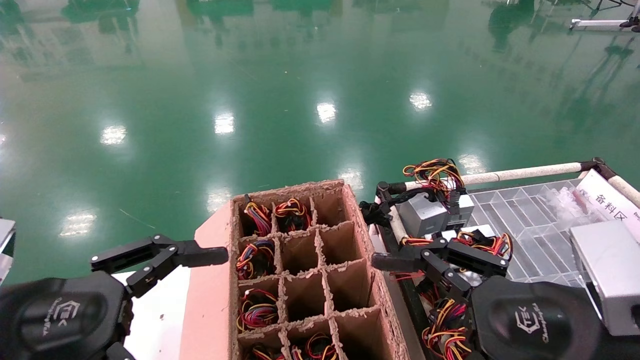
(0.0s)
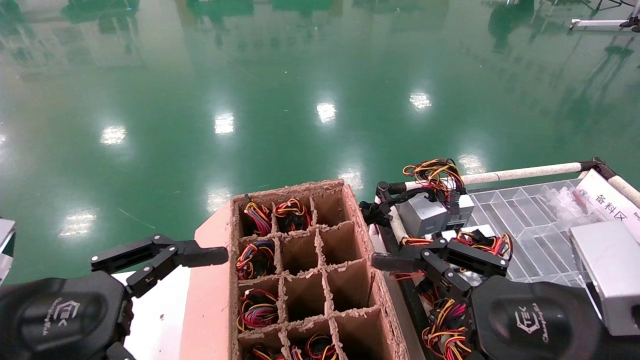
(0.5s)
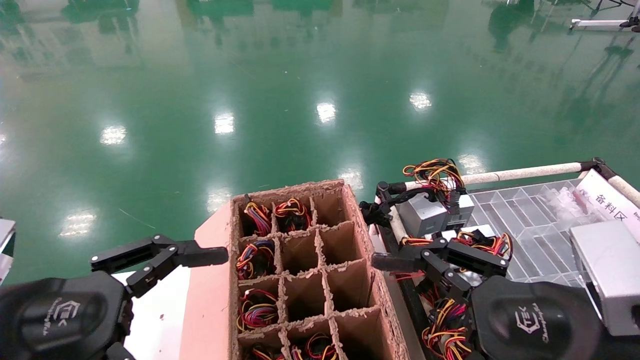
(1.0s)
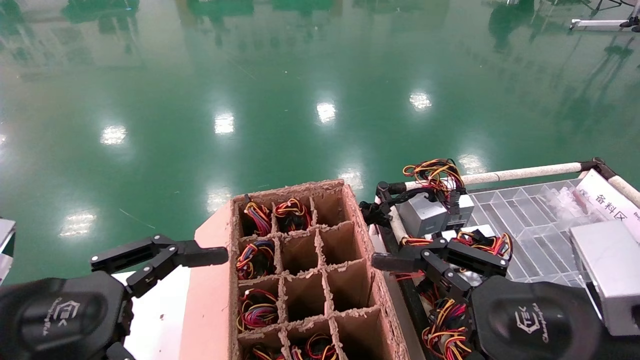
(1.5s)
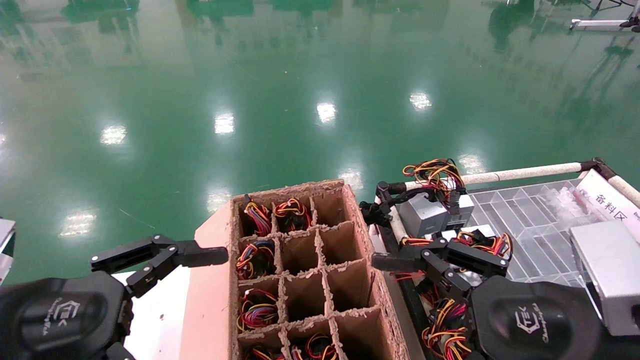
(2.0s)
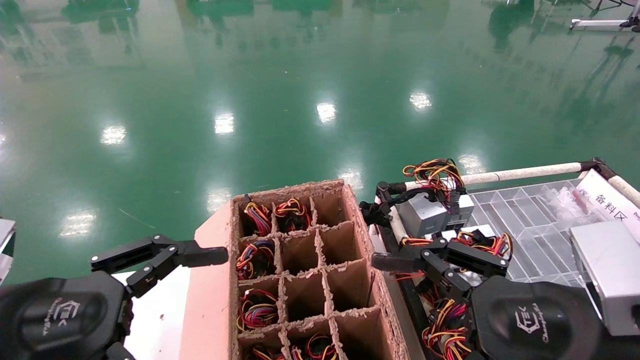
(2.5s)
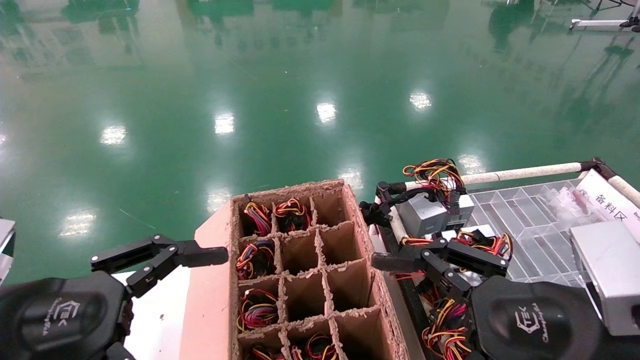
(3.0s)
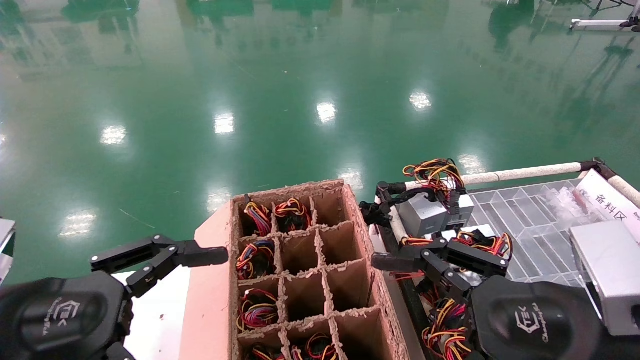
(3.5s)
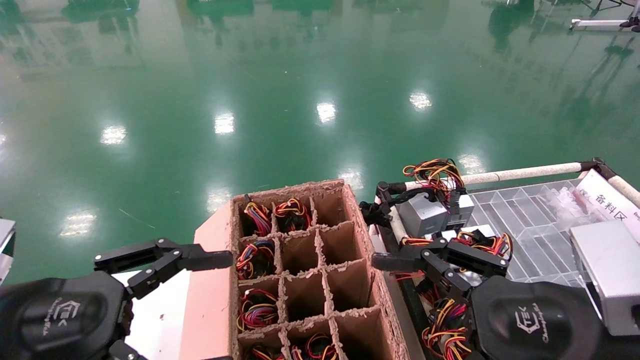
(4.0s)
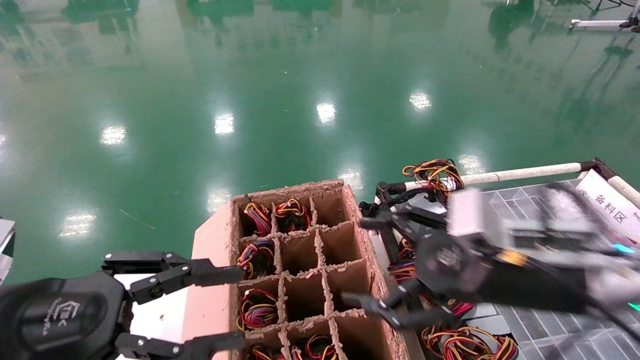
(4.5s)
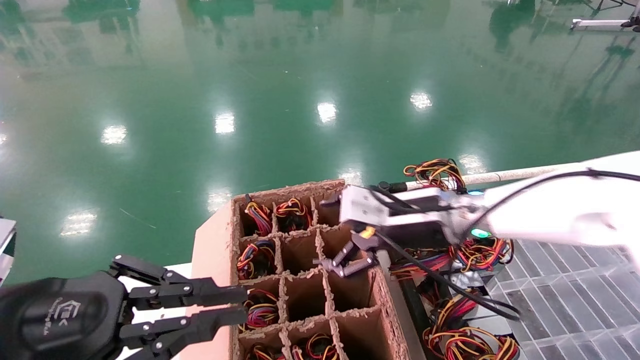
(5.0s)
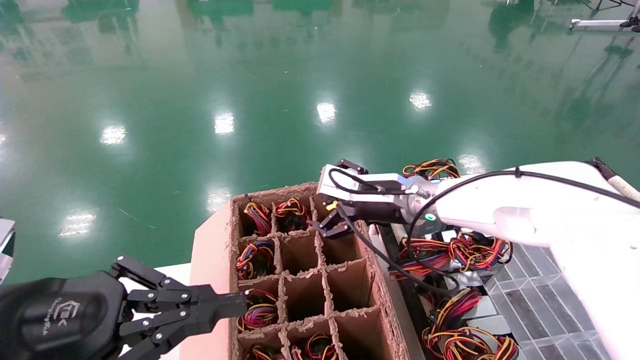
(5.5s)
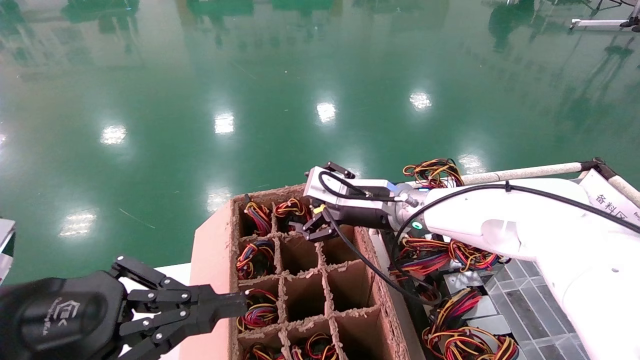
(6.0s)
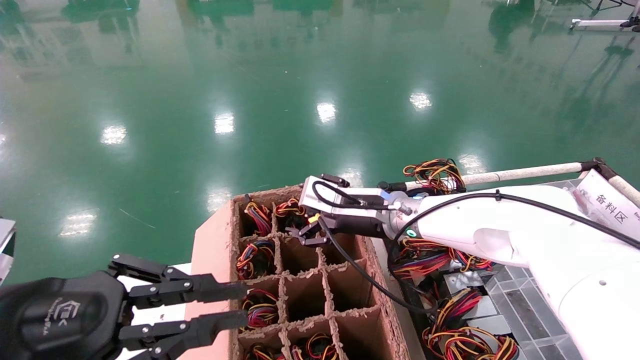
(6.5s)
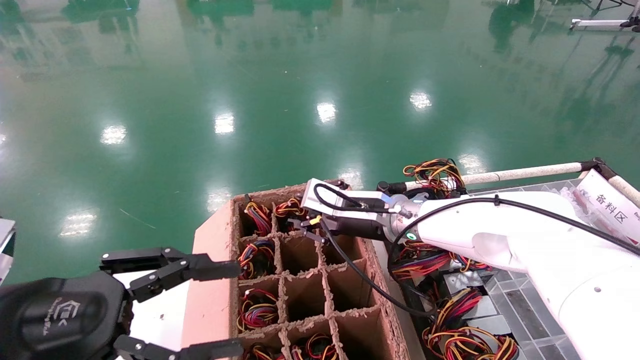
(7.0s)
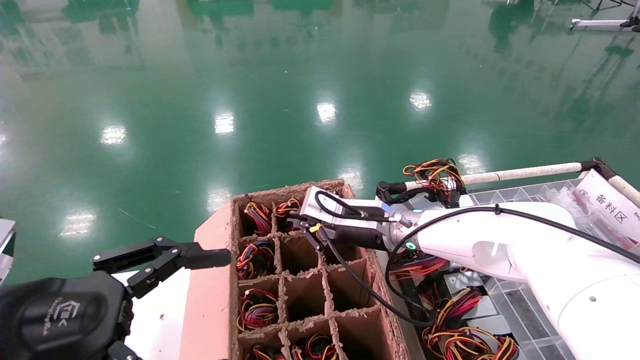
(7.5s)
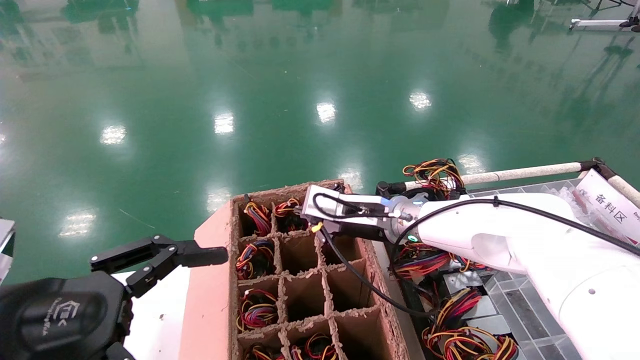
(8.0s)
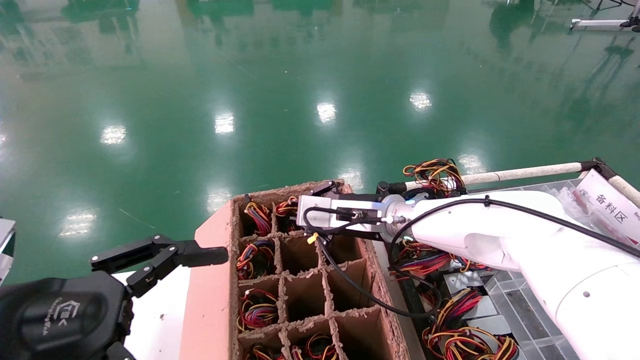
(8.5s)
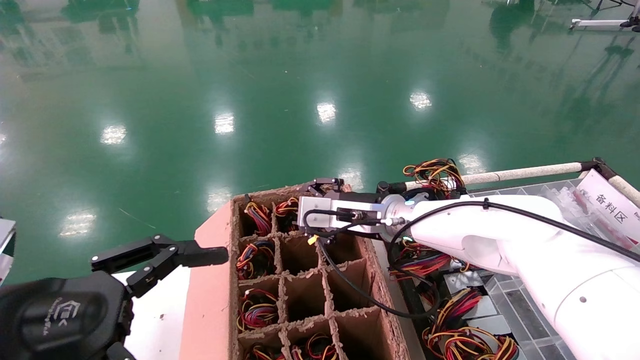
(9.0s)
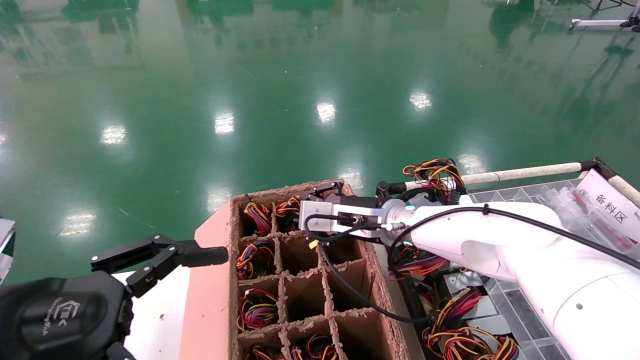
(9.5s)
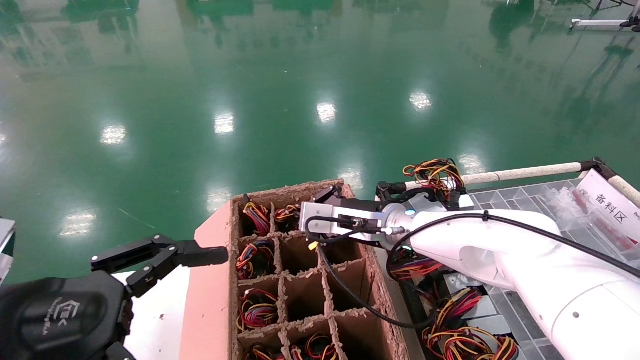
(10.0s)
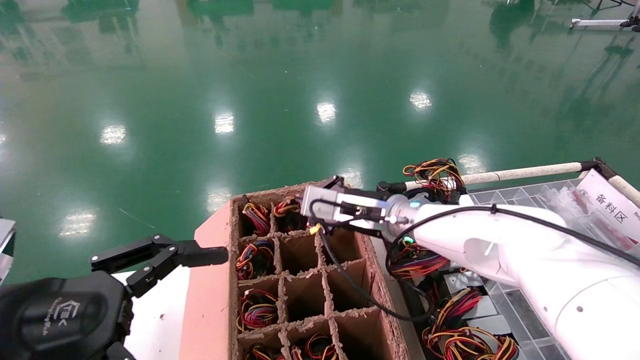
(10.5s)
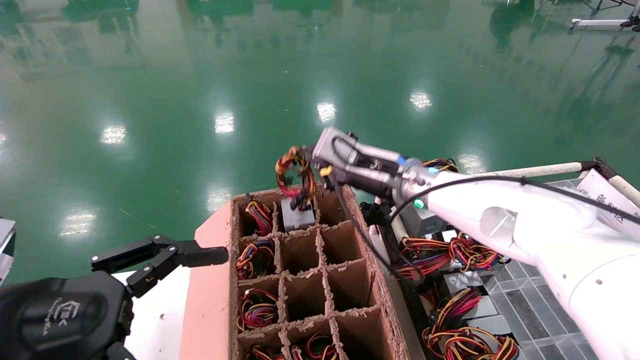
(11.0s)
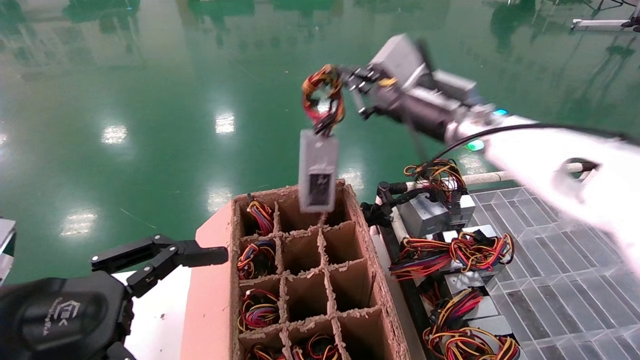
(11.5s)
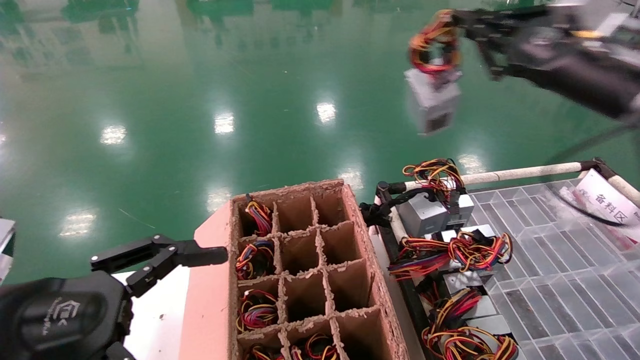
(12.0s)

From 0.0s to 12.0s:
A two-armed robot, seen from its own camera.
Step, from 5.5s to 10.5s: Grab and lift the power supply from the large box.
From 0.0s to 4.0s: Neither gripper changes place.
From 4.0s to 6.0s: The right gripper shifts roughly 30 cm forward and to the left. Meanwhile the left gripper closes.
From 6.0s to 8.0s: The left gripper opens its fingers, while the right gripper closes its fingers.
From 8.0s to 10.0s: The grippers move only a little.
From 10.0s to 12.0s: The right gripper heads to the right, upward and backward, covering approximately 35 cm.

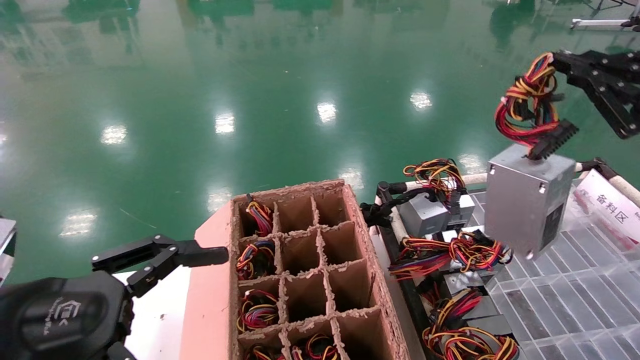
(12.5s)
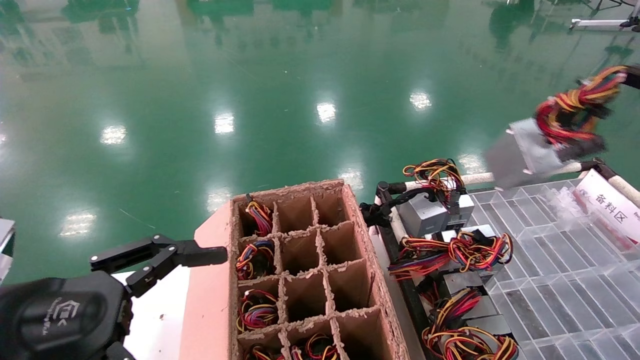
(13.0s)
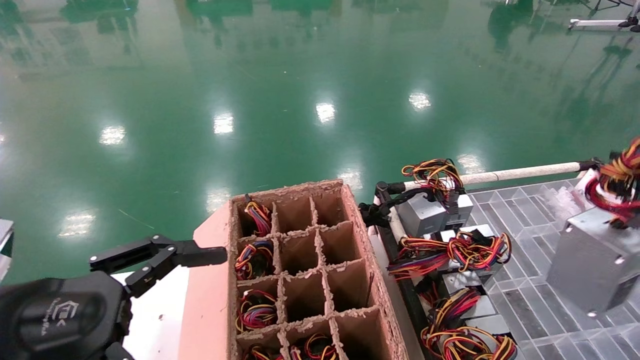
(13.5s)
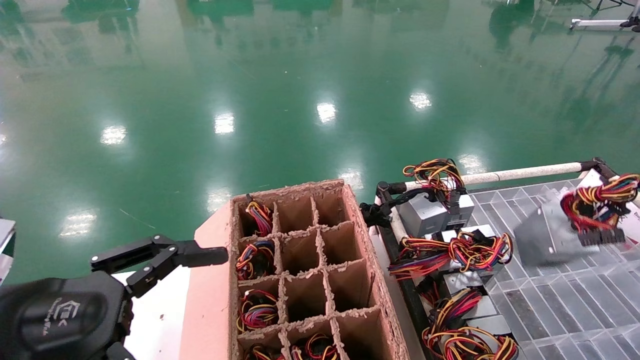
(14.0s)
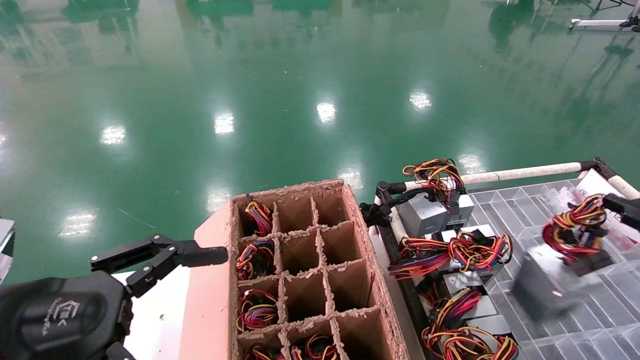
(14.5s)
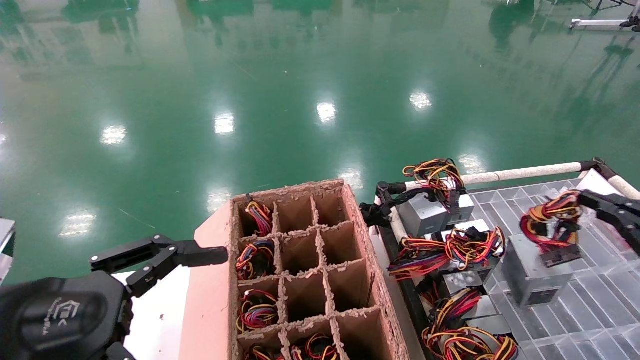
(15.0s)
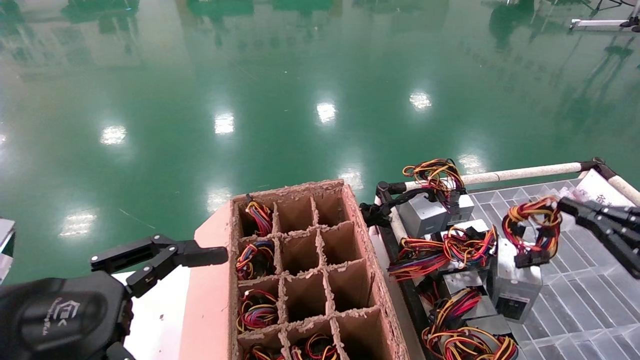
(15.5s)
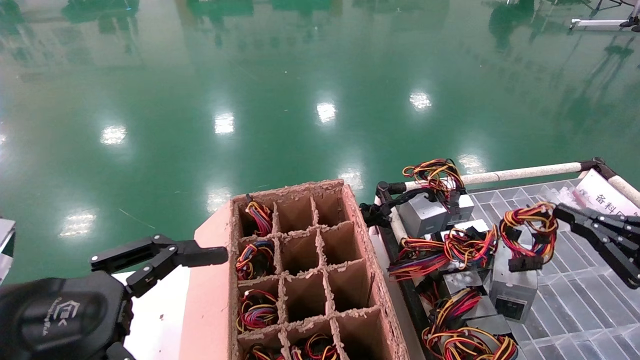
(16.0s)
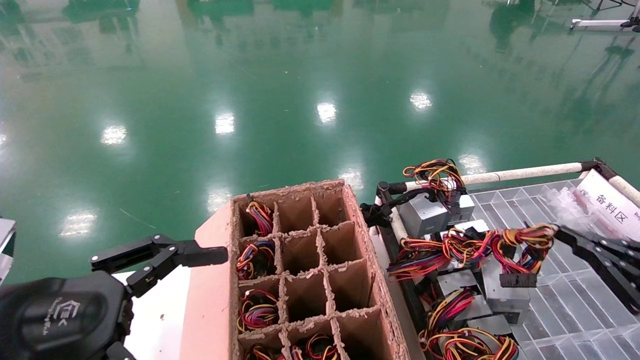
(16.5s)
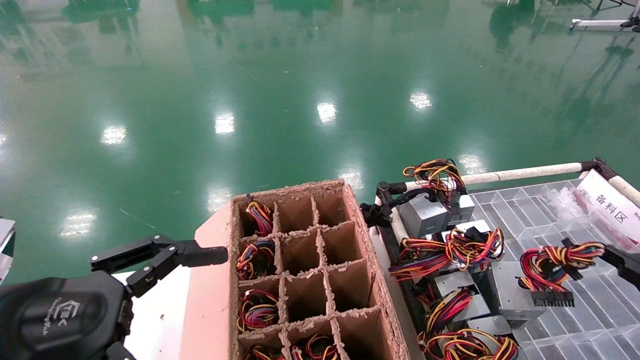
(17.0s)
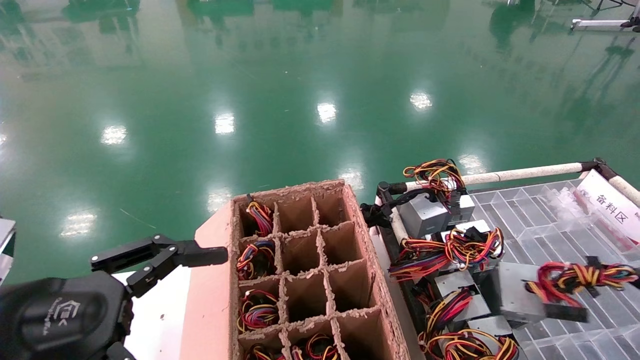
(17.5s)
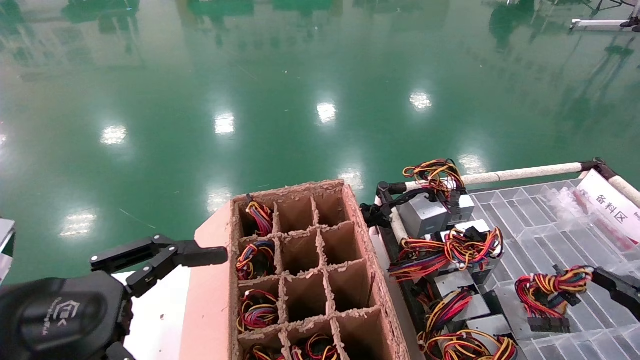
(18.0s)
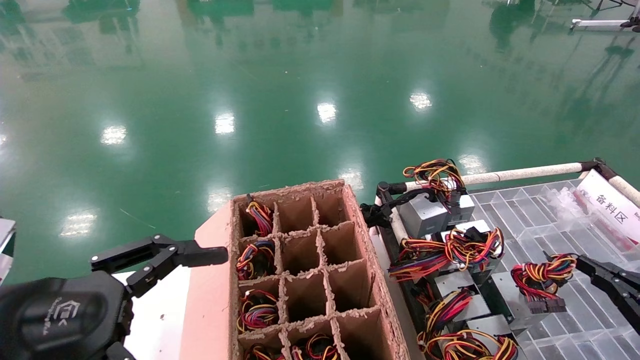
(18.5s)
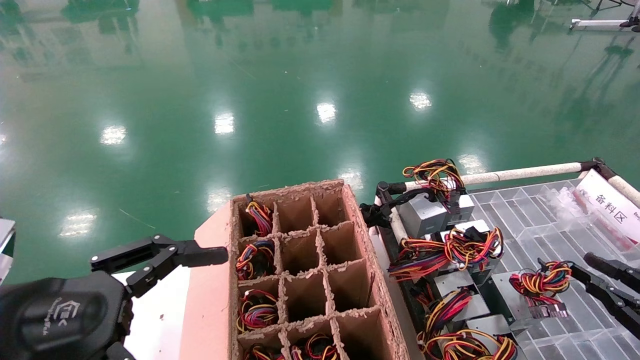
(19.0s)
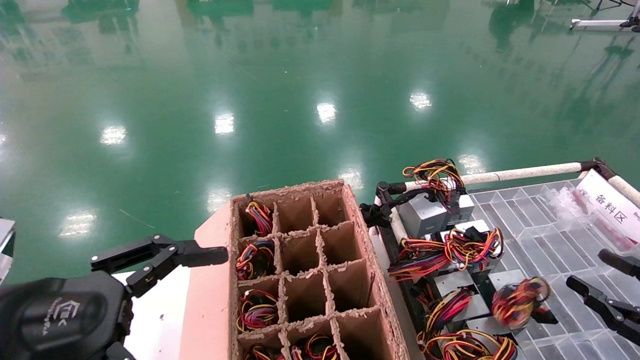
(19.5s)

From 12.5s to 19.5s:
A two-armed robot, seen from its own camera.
Step, from 12.5s to 18.5s: Place the power supply on the operating table.
From 12.5s to 14.5s: The right gripper is displaced downward and to the right by roughly 20 cm.
From 14.5s to 16.0s: The grippers make only small movements.
From 16.0s to 17.5s: The right gripper shifts roughly 10 cm downward and backward.
From 17.5s to 19.5s: The right gripper opens.
